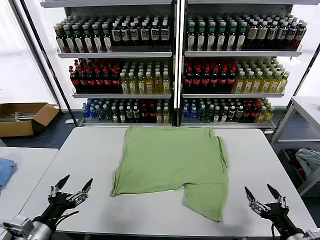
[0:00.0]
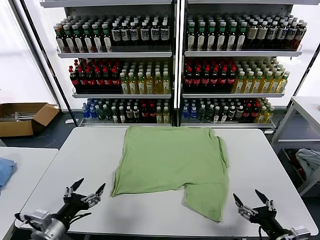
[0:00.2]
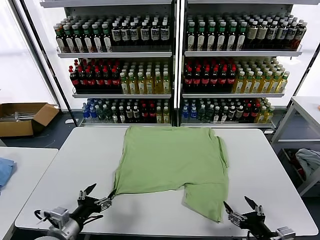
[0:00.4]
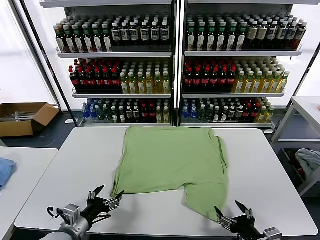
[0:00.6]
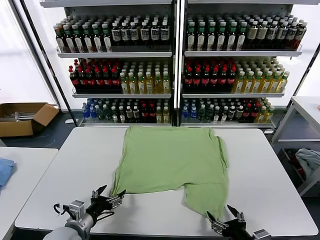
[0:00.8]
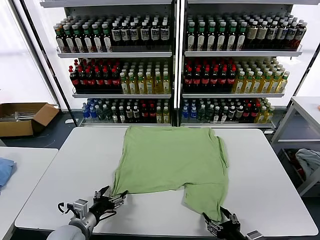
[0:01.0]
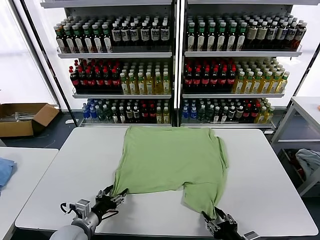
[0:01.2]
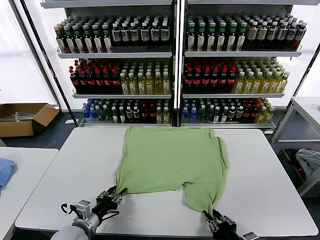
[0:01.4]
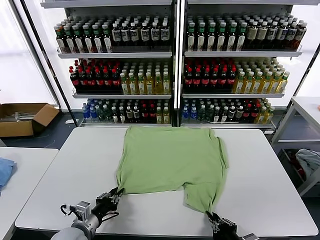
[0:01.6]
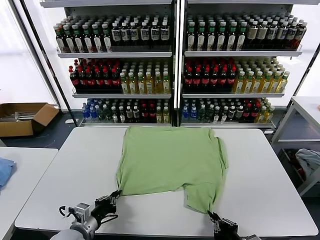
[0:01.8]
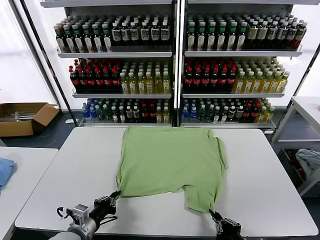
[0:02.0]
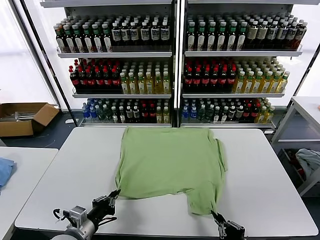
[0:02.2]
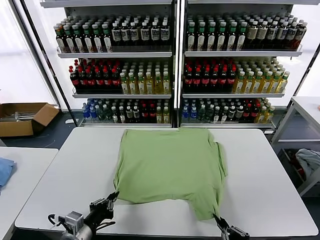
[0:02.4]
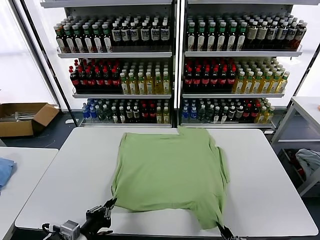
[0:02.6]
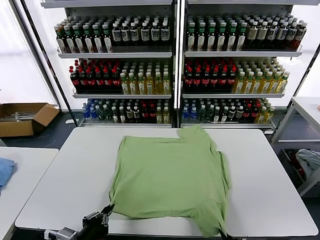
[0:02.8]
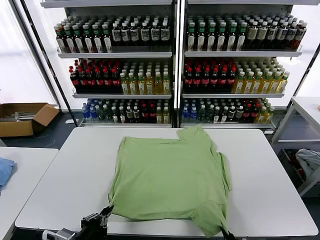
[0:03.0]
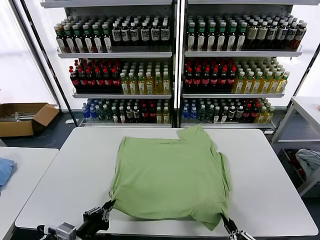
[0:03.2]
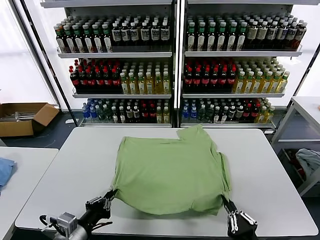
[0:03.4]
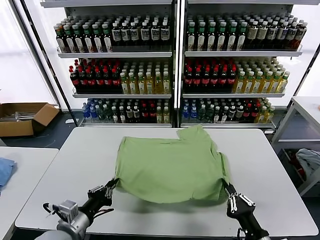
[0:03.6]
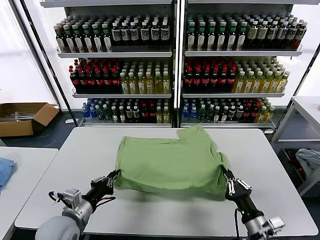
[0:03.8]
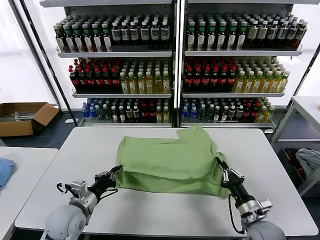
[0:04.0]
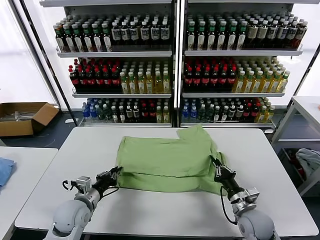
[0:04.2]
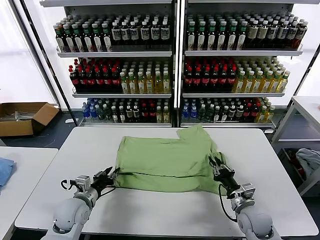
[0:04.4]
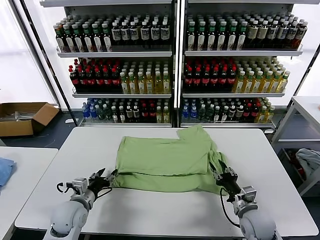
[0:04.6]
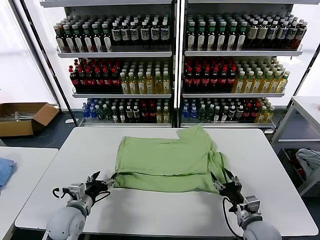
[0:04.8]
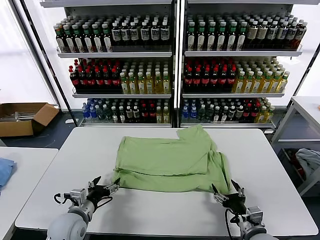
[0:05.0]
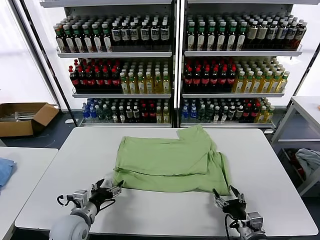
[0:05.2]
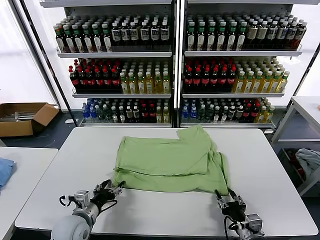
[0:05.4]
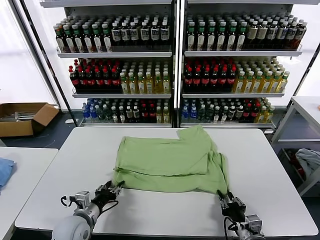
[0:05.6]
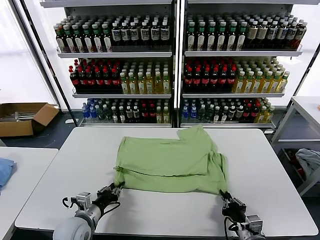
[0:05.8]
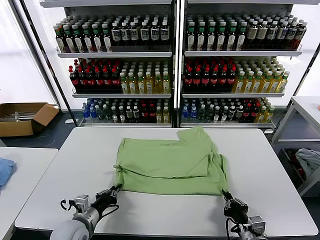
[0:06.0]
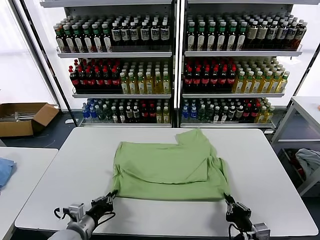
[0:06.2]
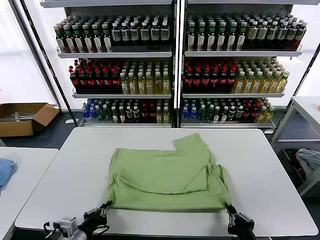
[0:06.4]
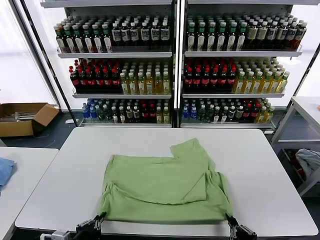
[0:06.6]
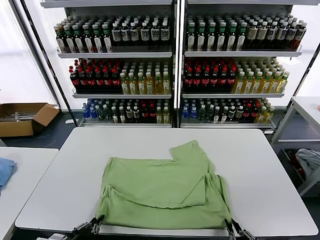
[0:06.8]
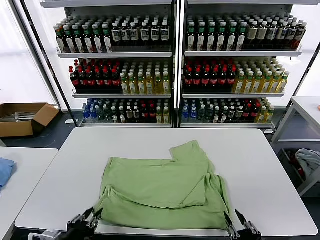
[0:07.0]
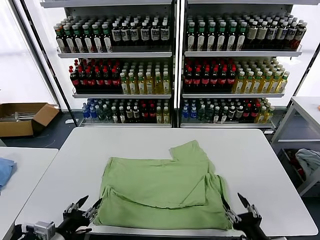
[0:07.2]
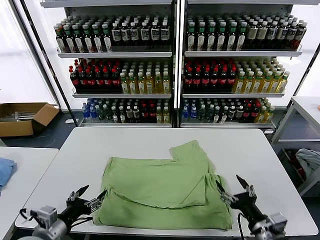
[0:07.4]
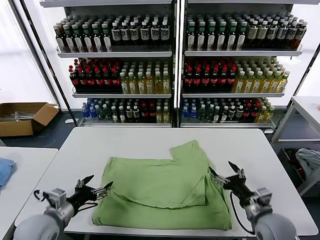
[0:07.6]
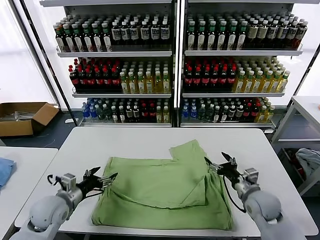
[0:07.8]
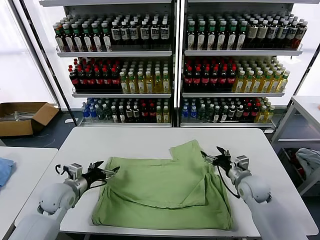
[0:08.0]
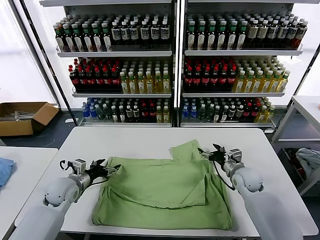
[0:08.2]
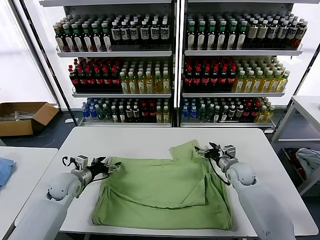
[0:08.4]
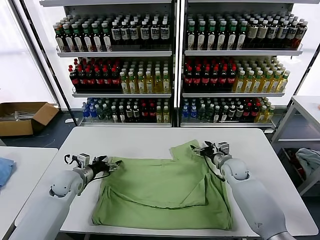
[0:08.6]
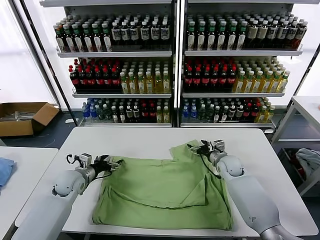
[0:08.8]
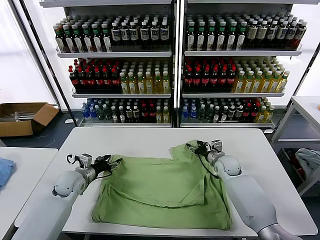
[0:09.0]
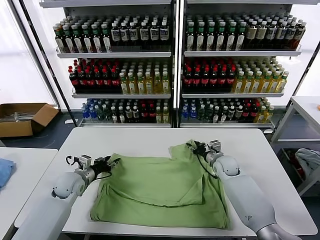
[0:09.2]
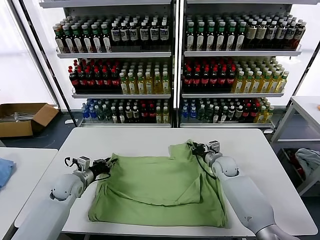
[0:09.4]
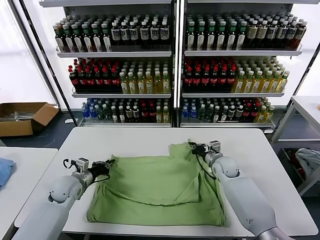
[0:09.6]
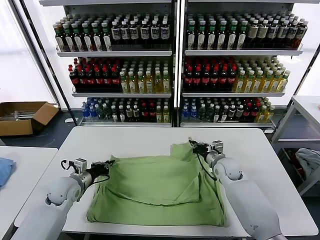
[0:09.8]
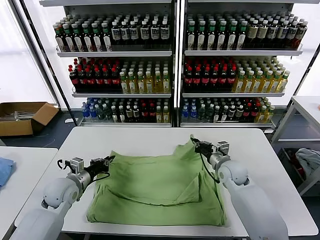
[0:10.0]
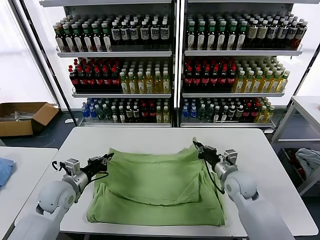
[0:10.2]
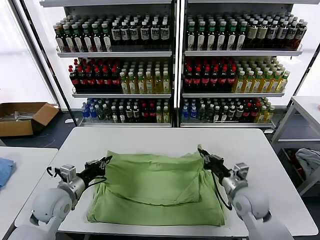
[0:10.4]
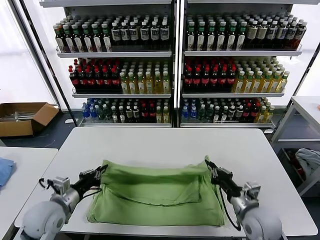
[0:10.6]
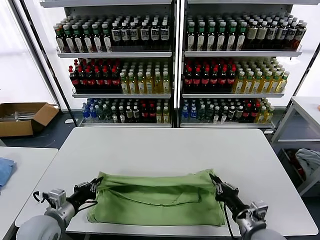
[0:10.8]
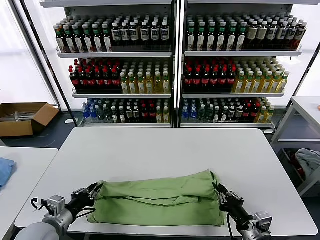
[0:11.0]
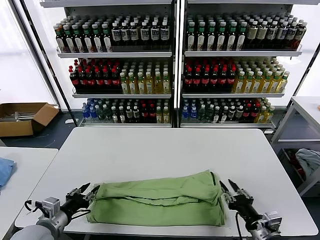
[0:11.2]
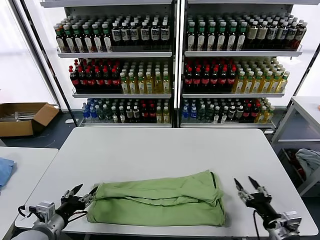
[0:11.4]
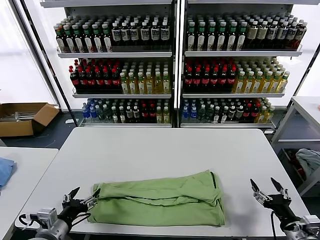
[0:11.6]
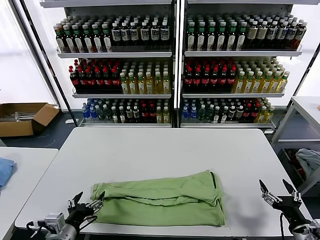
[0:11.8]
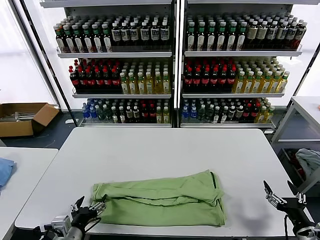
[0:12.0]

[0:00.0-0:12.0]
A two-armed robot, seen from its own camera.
Task of the whole recording: fold and organize the clothes.
Step, 0:00.0 to 0:01.8: use both grippers simultaneously to clamp the lower edge of the clothing fabric.
Step, 0:02.0 to 0:04.6: use both grippers to drag the lower edge of the fabric forward and fold it over the upper edge.
Step, 0:04.8 to 0:07.0: Drag the clothes downward with both gripper.
Step, 0:07.2 to 0:09.4: use both grippers simultaneously to clamp the upper edge of the clothing fabric.
Step, 0:09.8 to 0:11.2: use both grippers to drag the upper edge of the fabric backward and fold it over the lower edge.
0:01.6 to 0:03.0: The right gripper moves backward, roughly 10 cm. Meanwhile the left gripper heads backward and upward, covering approximately 15 cm.
0:03.0 to 0:04.4: Both grippers move forward, roughly 25 cm. The left gripper opens up, while the right gripper opens.
0:04.4 to 0:06.0: The left gripper moves backward, roughly 5 cm, and opens and closes again, while the right gripper goes roughly 10 cm backward, and closes its fingers.
0:06.0 to 0:07.6: The left gripper heads upward and to the left, covering some 10 cm, reaches roughly 15 cm backward, then returns, and opens its fingers, while the right gripper travels forward by approximately 10 cm, and opens.
0:07.6 to 0:09.0: The two grippers go about 20 cm forward. The right gripper closes up.
0:09.0 to 0:10.4: The right gripper travels backward by some 20 cm, and closes up. The left gripper goes about 10 cm backward and upward, and closes.
0:10.4 to 0:12.0: The right gripper goes roughly 20 cm backward and to the right, and opens up; the left gripper travels backward by roughly 15 cm, and opens.

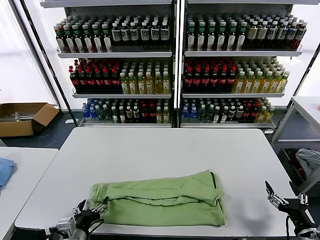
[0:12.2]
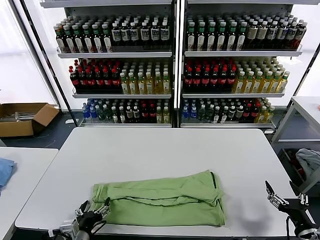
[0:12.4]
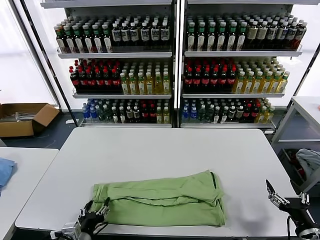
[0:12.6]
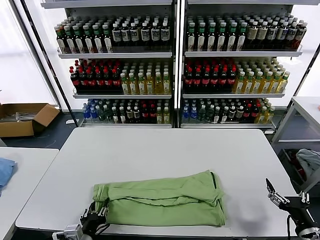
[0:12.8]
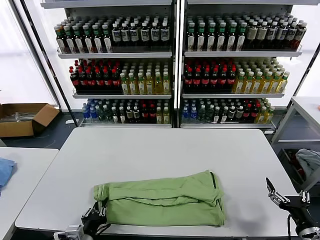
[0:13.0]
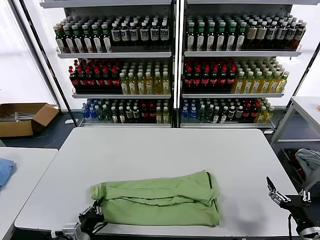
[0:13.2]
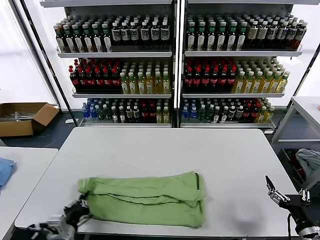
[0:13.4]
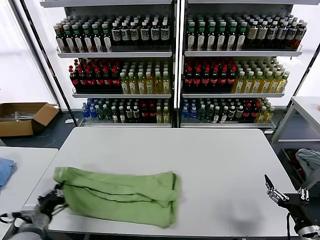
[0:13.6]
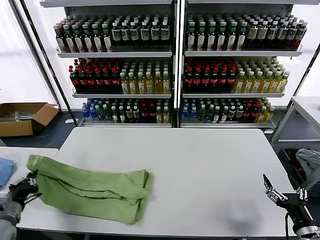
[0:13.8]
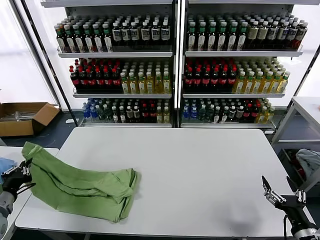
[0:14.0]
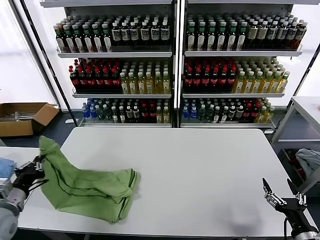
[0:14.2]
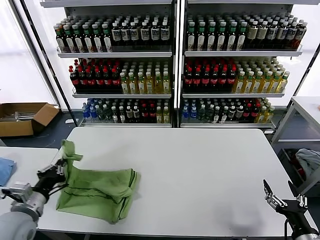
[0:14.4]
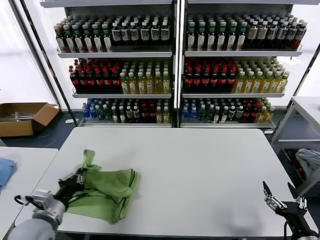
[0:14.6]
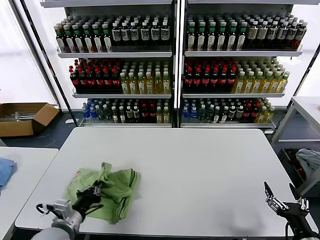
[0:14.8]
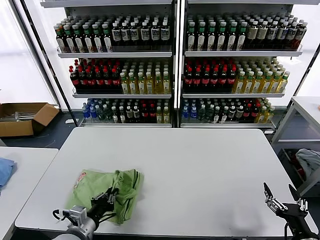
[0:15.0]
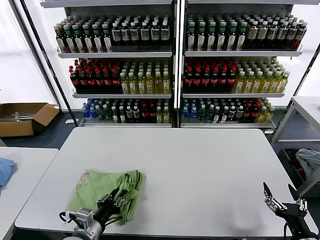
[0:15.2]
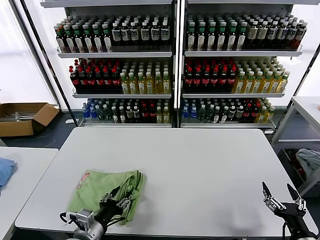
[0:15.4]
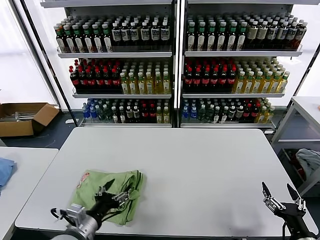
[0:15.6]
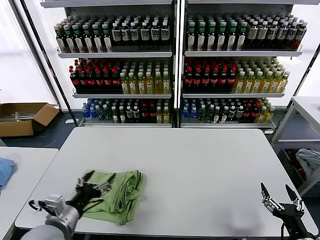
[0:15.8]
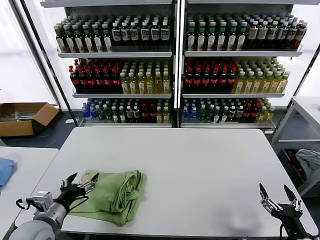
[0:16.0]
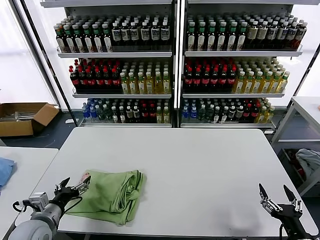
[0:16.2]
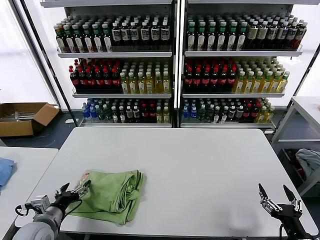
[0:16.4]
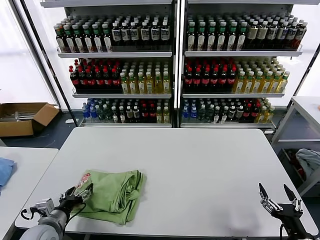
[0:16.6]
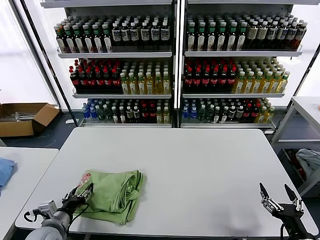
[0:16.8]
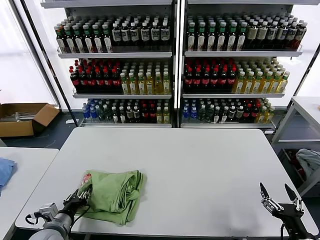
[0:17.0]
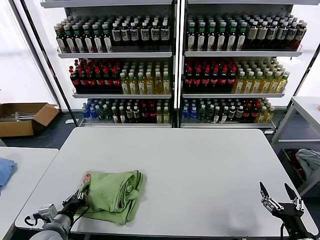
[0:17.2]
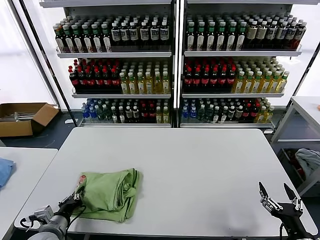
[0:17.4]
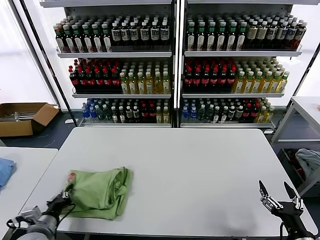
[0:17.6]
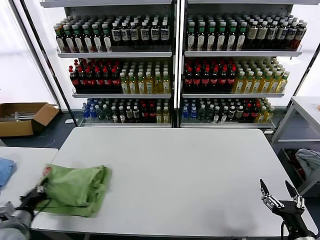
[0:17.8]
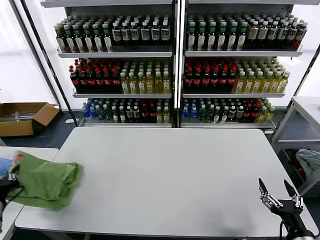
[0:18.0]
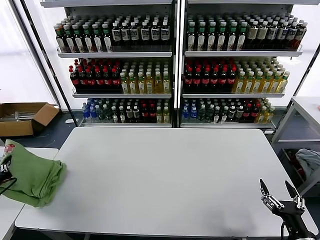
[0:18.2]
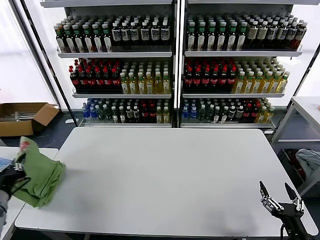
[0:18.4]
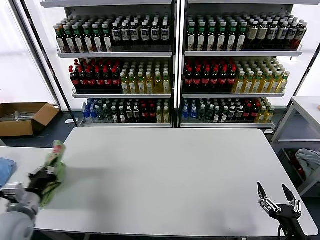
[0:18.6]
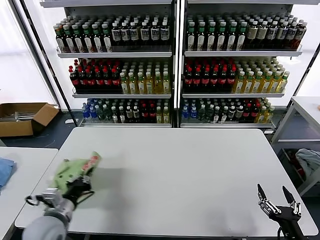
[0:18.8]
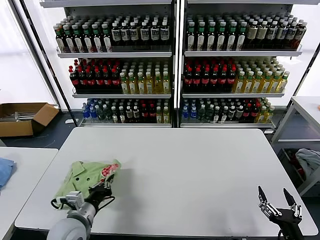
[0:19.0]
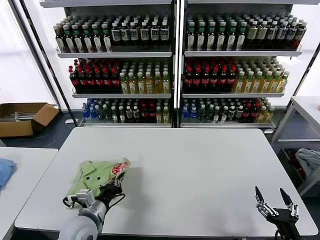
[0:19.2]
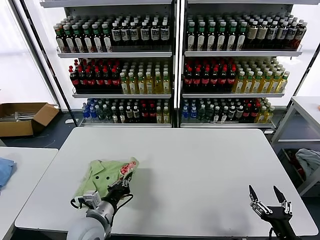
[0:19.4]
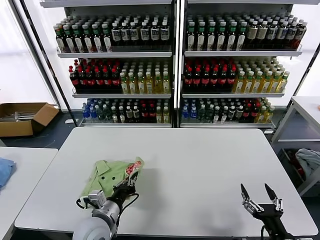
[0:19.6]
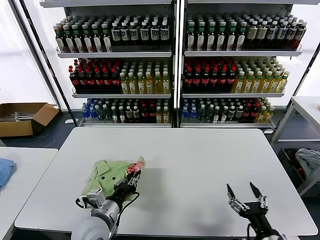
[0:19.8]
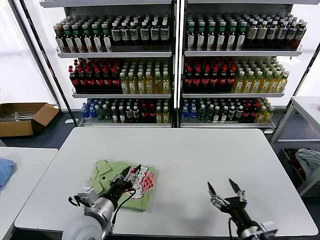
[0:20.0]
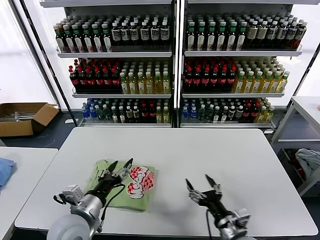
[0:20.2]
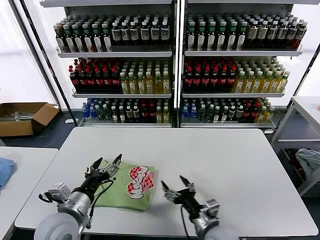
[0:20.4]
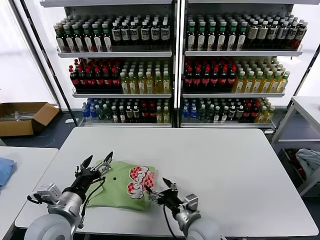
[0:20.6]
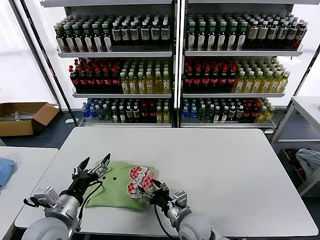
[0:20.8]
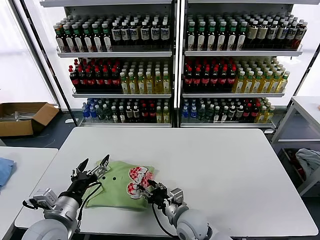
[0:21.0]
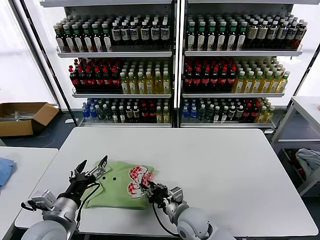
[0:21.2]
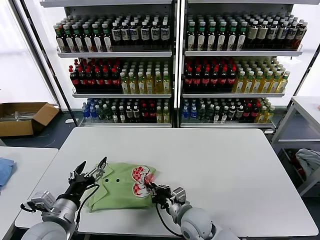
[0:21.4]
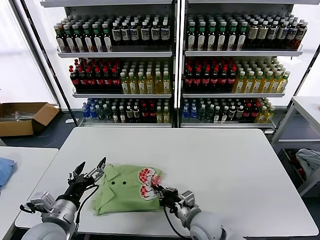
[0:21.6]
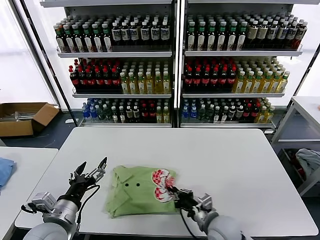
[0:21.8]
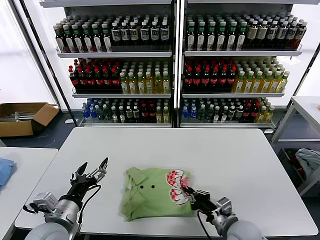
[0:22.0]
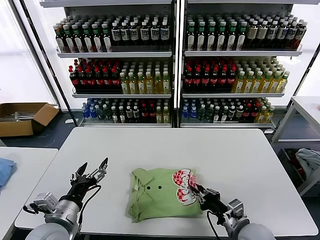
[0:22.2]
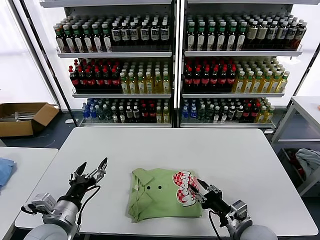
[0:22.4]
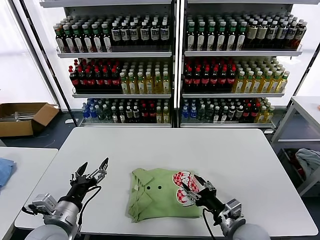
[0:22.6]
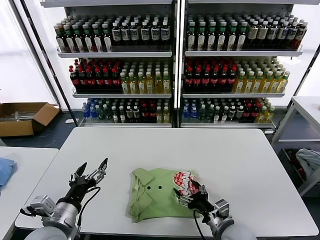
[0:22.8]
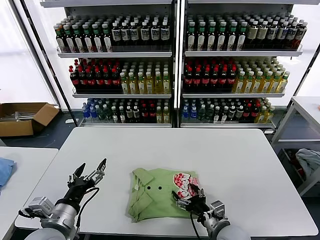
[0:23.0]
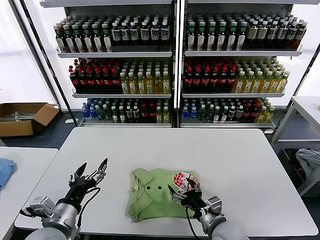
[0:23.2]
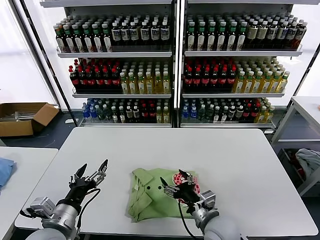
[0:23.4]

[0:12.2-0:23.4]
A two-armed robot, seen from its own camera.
Task of the whole recording: fold and organize the clothes.
Step, 0:13.2 to 0:15.6: use the left gripper to drag the left edge of the fabric to the left and folds it over the right edge.
Step, 0:15.8 to 0:20.0: Flip the folded clothes over with left gripper.
0:12.2 to 0:13.8: The left gripper heads to the left, covering about 20 cm, and closes.
0:13.8 to 0:15.4: The left gripper goes approximately 20 cm to the right, and opens its fingers.
0:15.4 to 0:17.0: The left gripper heads to the left, covering some 10 cm, and opens and closes again.
0:17.0 to 0:18.6: The left gripper travels upward and to the left by approximately 10 cm, and closes its fingers.
0:18.6 to 0:20.2: The right gripper travels to the left and forward by about 15 cm, while the left gripper moves to the right, about 20 cm, and opens its fingers.
0:20.2 to 0:21.8: The left gripper heads to the left, covering some 5 cm. Meanwhile the right gripper goes roughly 10 cm forward and to the left, and closes.
0:21.8 to 0:23.4: The right gripper travels to the right and back again, some 10 cm each way, and opens.
